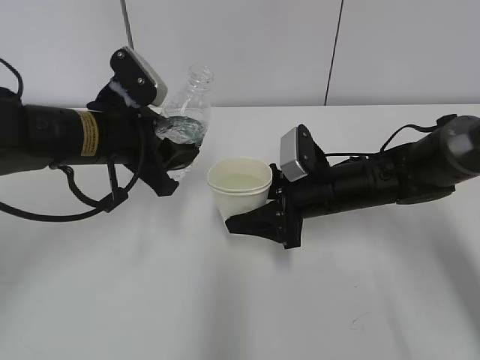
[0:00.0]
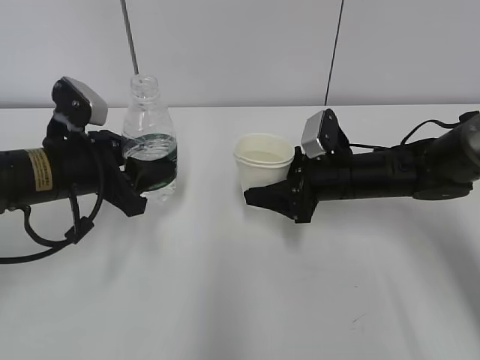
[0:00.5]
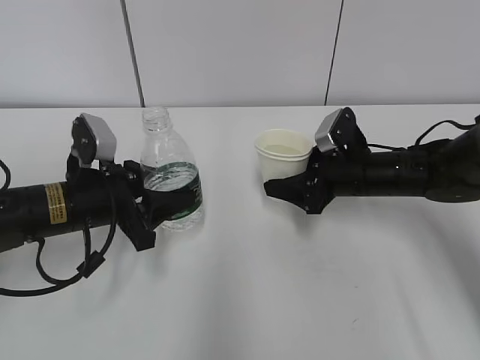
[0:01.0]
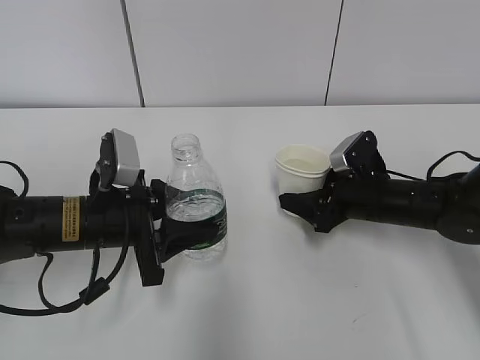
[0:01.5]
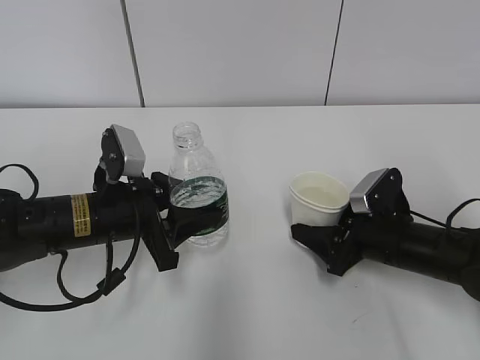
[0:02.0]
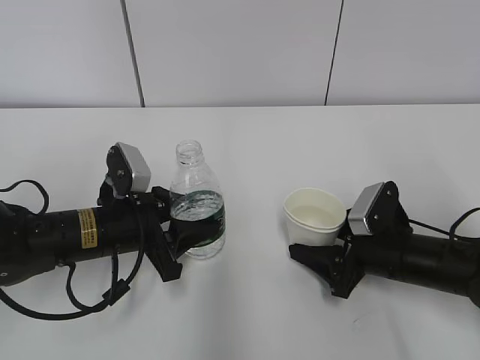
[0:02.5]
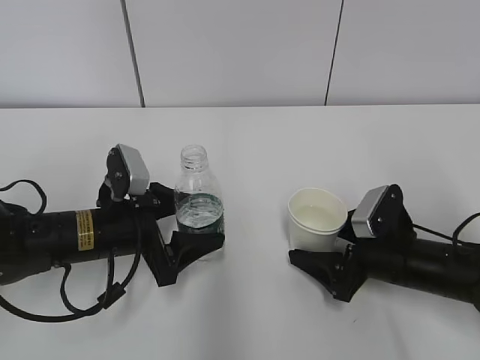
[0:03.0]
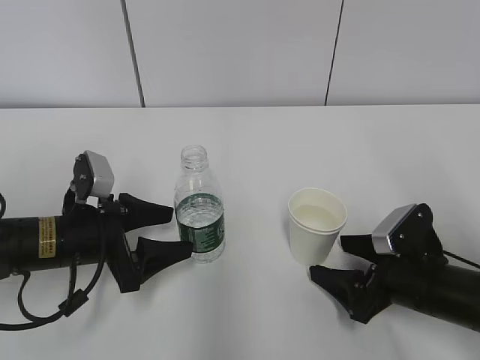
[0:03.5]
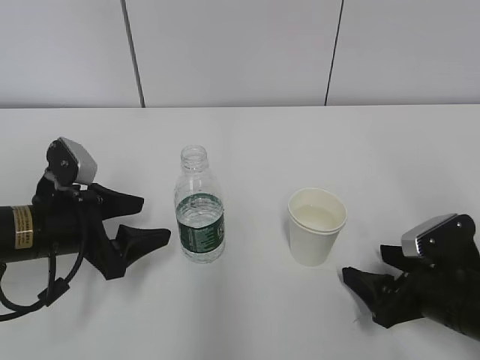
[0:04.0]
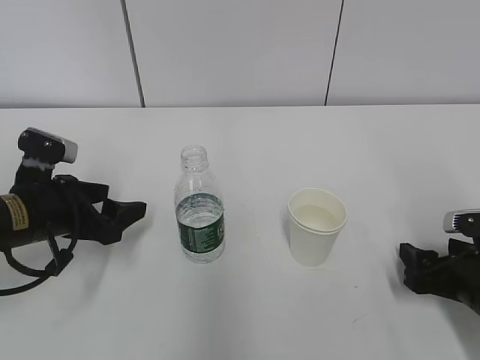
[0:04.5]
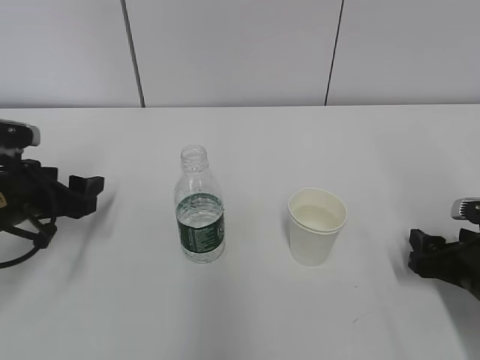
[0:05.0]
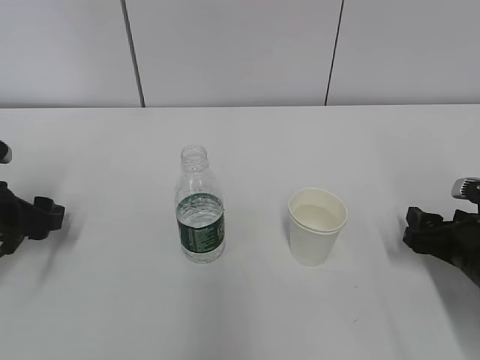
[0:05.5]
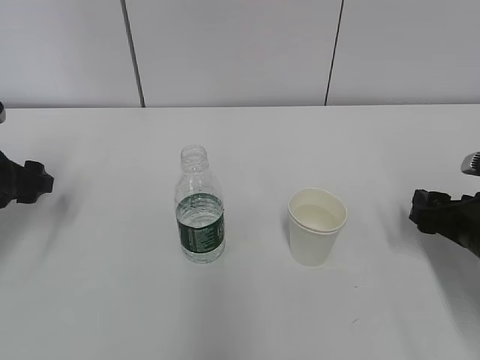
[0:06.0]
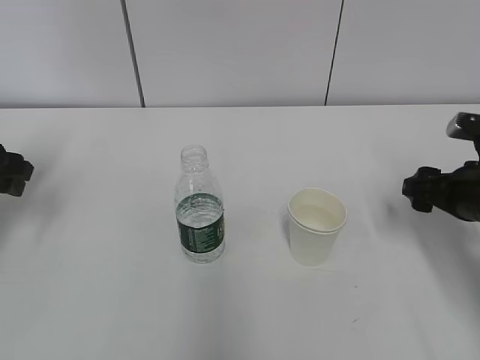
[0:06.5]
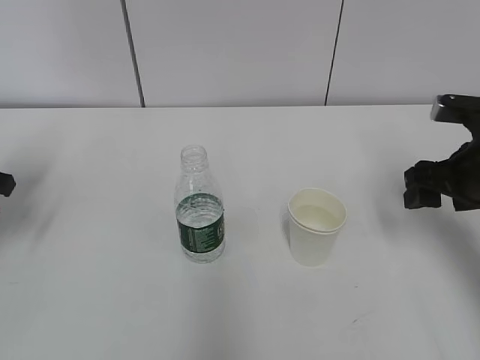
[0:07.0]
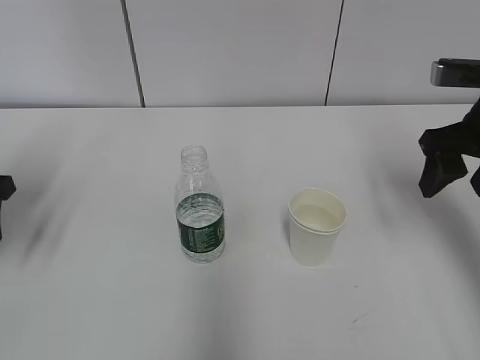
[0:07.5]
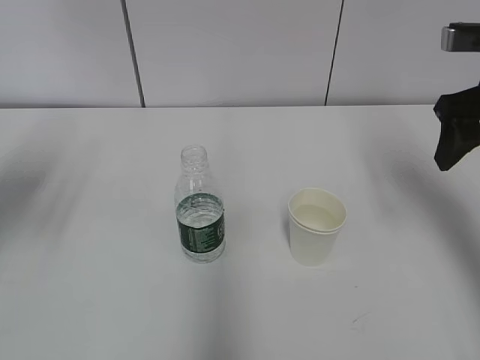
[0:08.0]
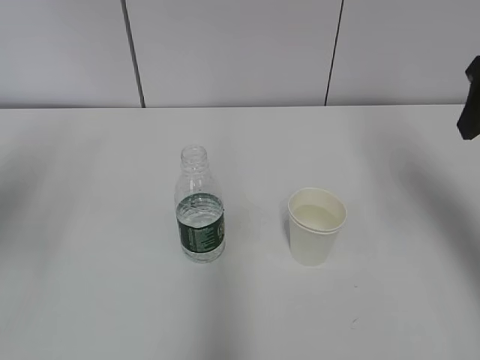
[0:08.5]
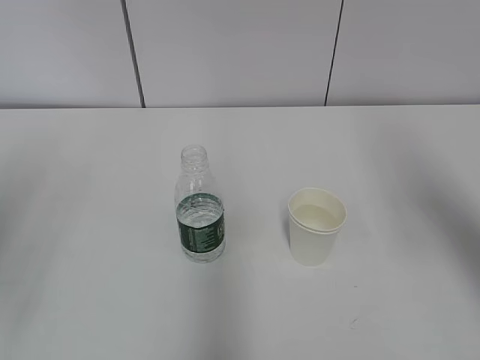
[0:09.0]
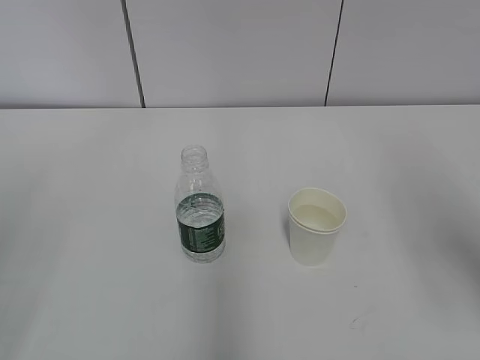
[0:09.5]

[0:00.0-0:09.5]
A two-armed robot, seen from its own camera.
0:00.0 to 0:02.0: The right gripper goes some 10 cm to the right and backward. The left gripper is displaced downward by some 10 cm.
0:02.0 to 0:04.0: The right gripper goes approximately 10 cm backward, and opens up, while the left gripper goes about 5 cm to the left, and opens its fingers.
0:04.0 to 0:05.5: The right gripper changes place by about 5 cm. Meanwhile the left gripper goes approximately 10 cm to the left.
0:05.5 to 0:07.5: The right gripper heads upward, covering about 20 cm. Meanwhile the left gripper goes roughly 10 cm upward.
0:07.5 to 0:09.5: The two grippers go about 20 cm backward and upward.

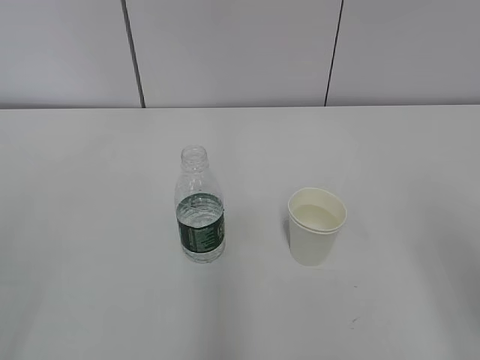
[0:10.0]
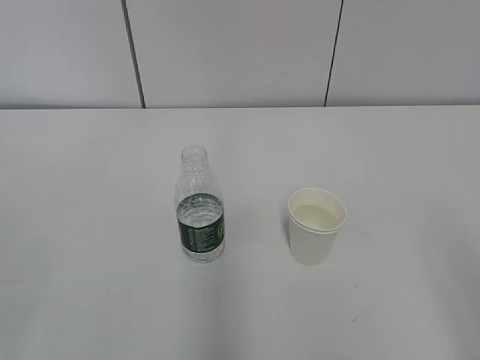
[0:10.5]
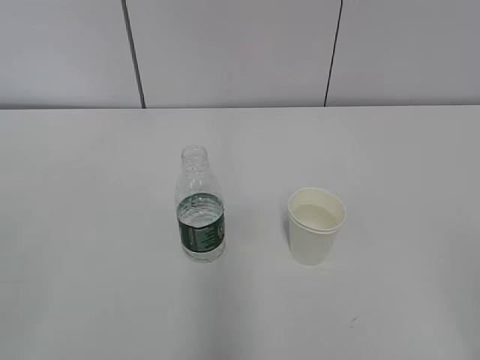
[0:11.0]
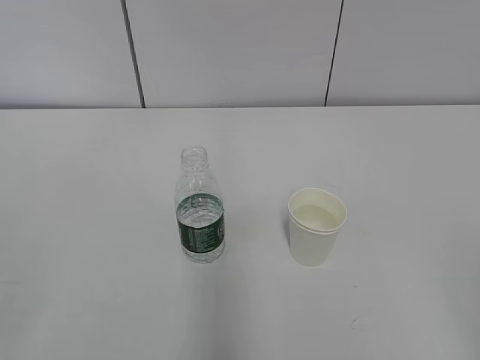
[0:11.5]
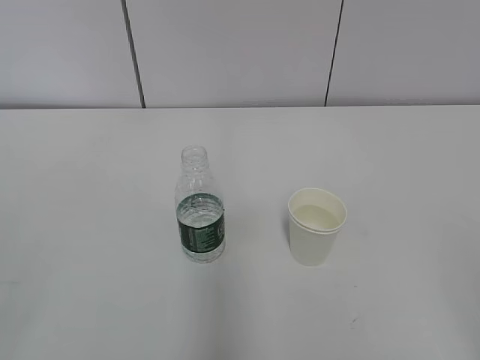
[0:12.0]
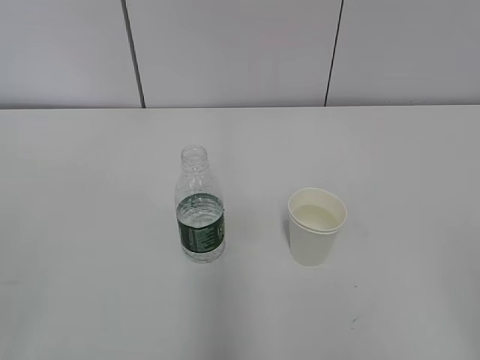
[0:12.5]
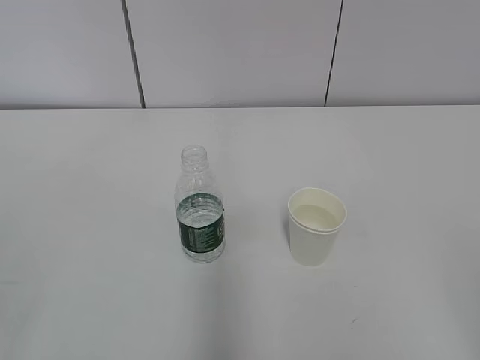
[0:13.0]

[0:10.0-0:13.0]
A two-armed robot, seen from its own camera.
0:11.5 to 0:13.0: Neither gripper changes place.
